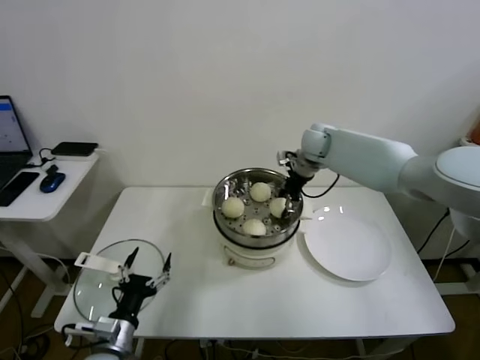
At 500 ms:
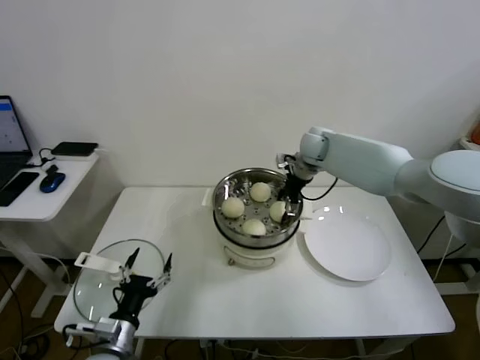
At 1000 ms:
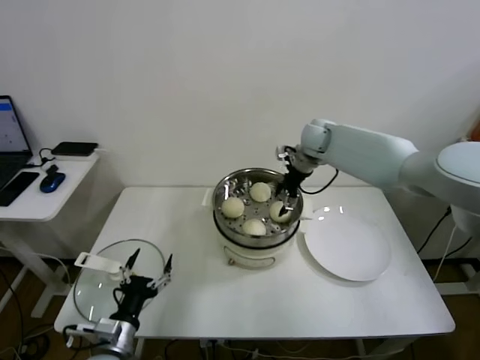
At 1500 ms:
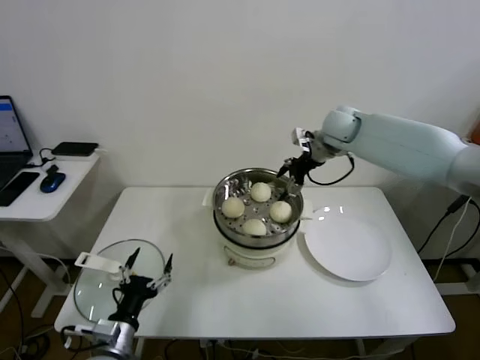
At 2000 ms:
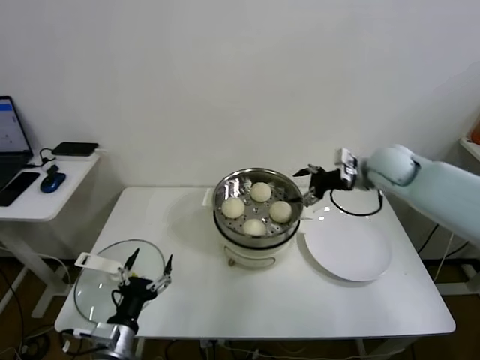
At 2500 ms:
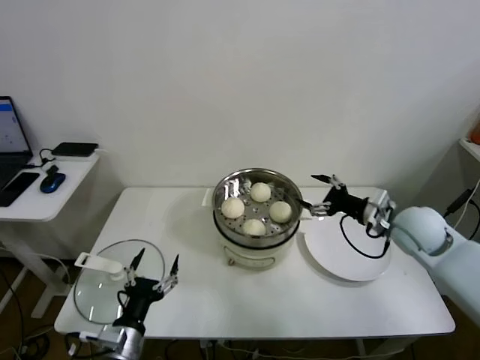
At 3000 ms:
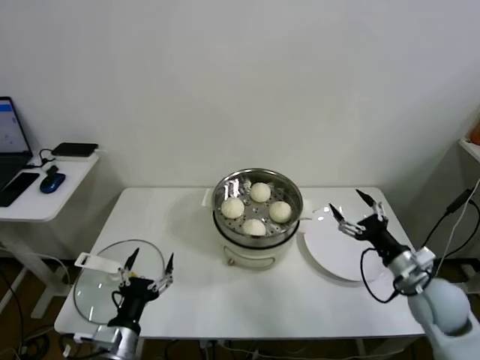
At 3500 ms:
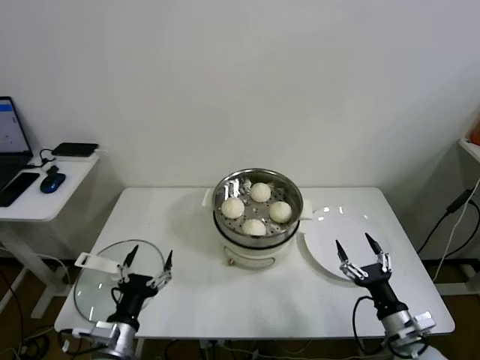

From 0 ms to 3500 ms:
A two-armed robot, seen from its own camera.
Task of the whole recording: take steamed baozi put them in steamer.
From 0 ms to 2000 ms: The right gripper heads to the right and backward, covering roughly 15 cm, and opens up.
From 2000 ms to 3500 ms: The right gripper goes roughly 40 cm backward and downward.

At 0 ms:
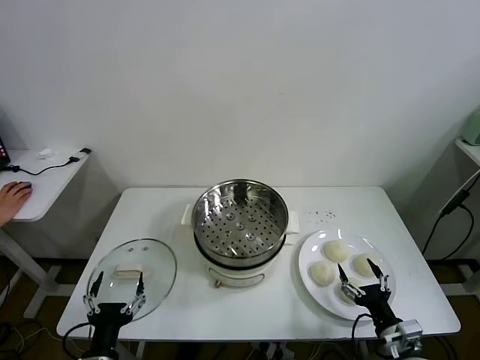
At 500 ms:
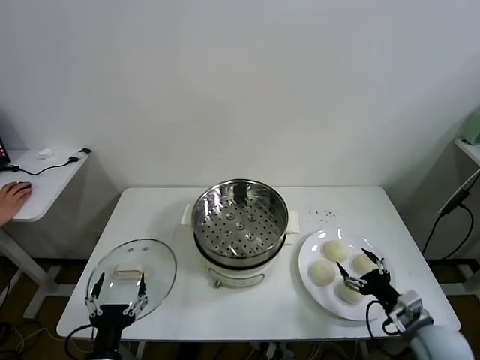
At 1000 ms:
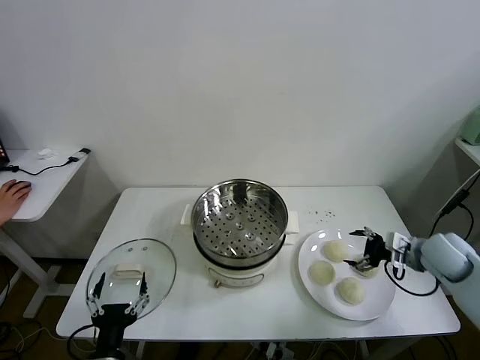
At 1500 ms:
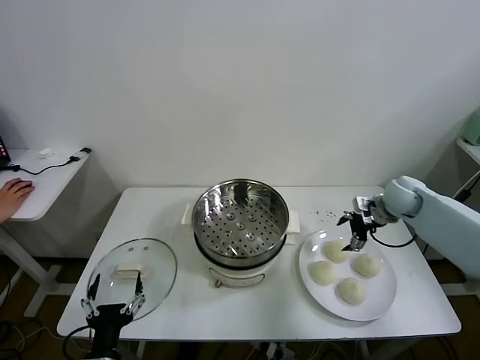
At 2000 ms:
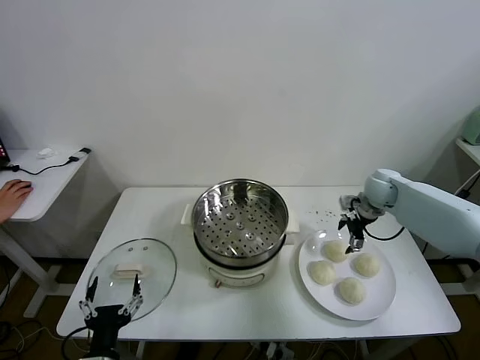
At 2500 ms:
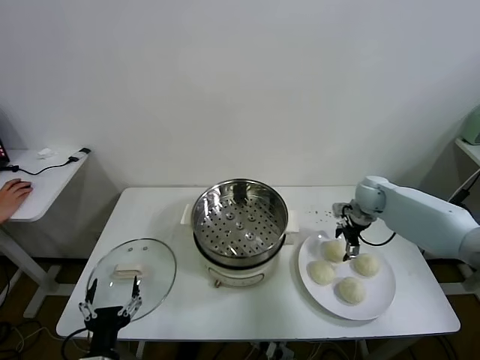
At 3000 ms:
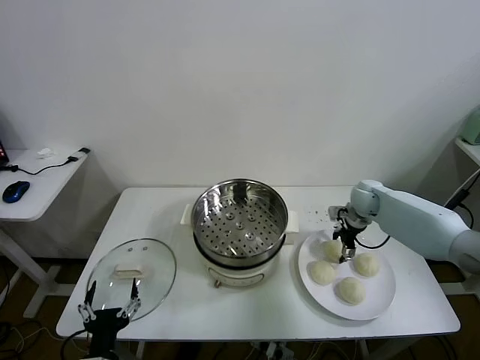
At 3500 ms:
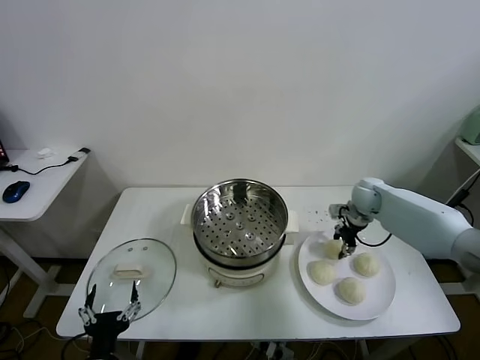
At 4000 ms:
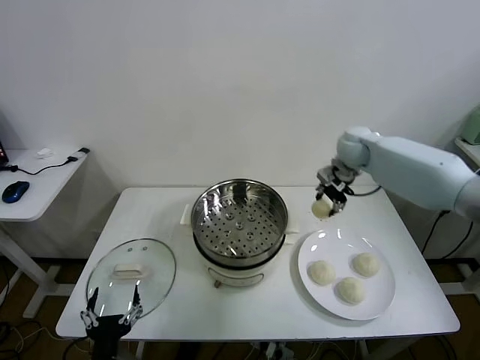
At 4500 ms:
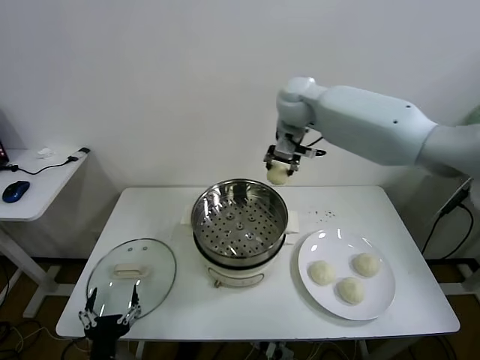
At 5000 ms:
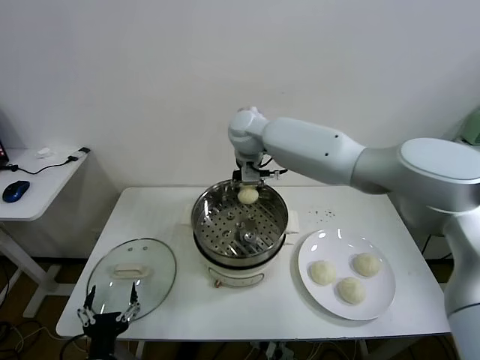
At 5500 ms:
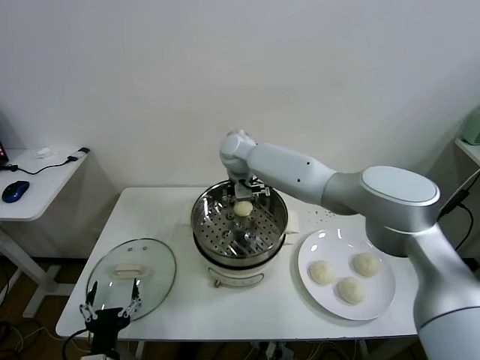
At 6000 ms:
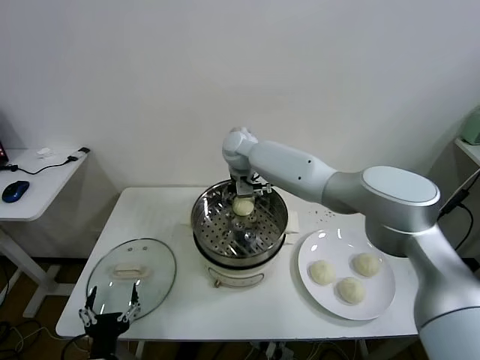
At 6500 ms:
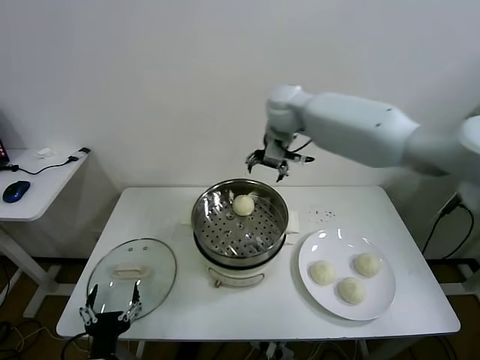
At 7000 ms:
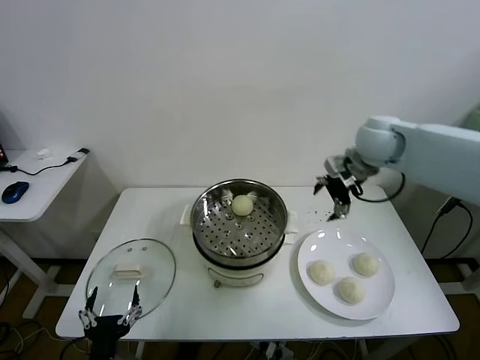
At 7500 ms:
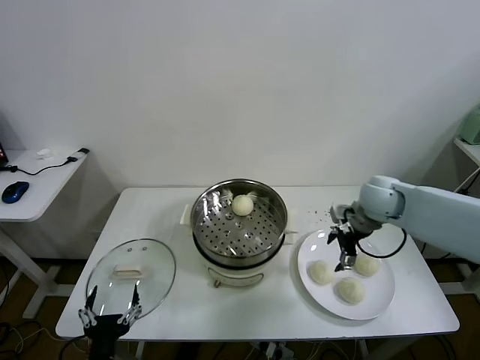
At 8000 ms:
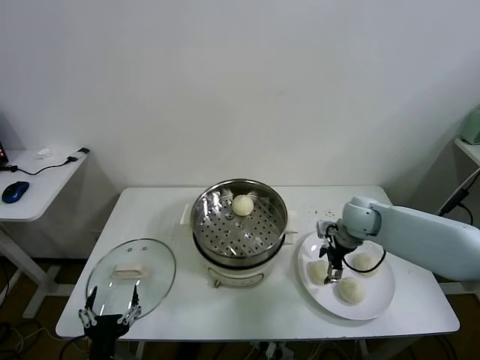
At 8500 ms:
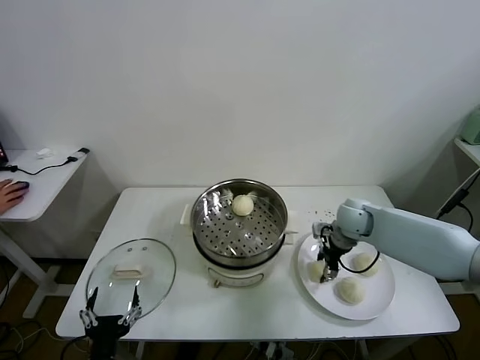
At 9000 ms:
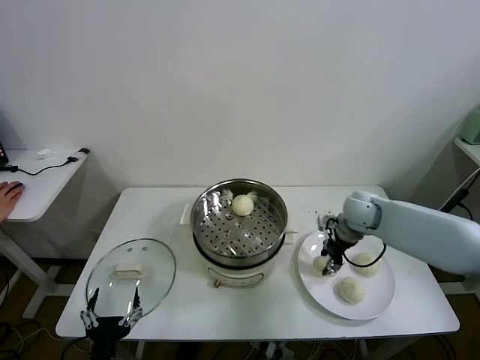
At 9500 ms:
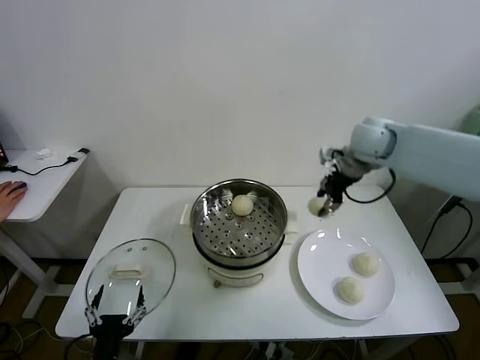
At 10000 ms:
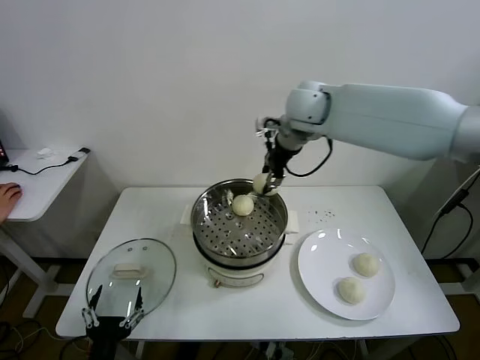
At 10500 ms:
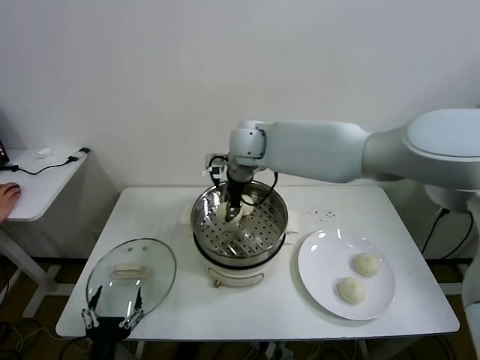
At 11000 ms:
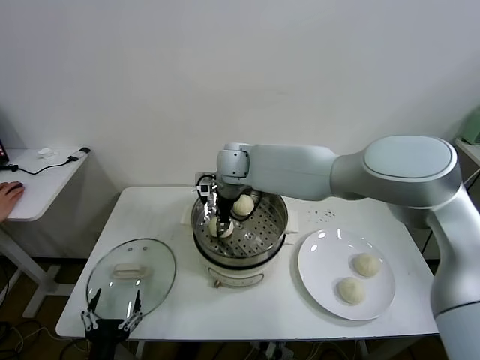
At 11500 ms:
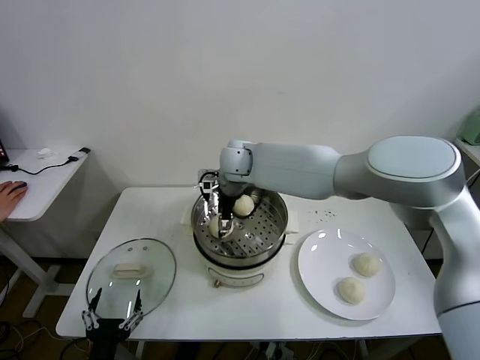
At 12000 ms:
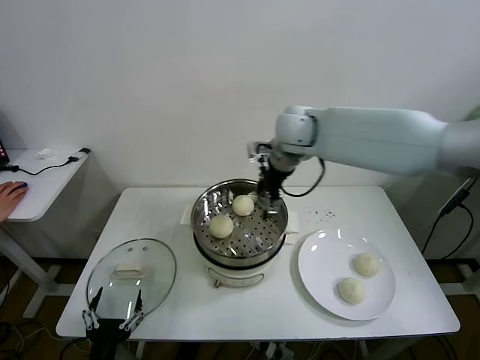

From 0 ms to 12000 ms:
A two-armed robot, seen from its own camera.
Task of the whole recording: take steamed baozi put them in steamer.
Step, from 0 ms to 3000 ms: Grasp the baozi in the plate with right gripper.
Step, from 3500 ms to 6000 ms: Place the baozi on the steamer with right gripper.
Step, from 6500 ms to 8500 ms: Grasp the baozi in the plate with right gripper.
Step, from 9000 ms to 11500 ms: Place the baozi on the steamer with right gripper.
From 2000 ms to 4000 ms: The right gripper shifts some 20 cm upward and to the left, and closes its fingers.
From 4000 ms to 6000 ms: The right gripper heads to the left, covering some 25 cm, and opens its fingers.
From 6000 ms to 8000 ms: The right gripper shifts approximately 30 cm to the right and downward.
From 8000 ms to 10000 ms: The right gripper is displaced upward and to the left by some 30 cm, and closes its fingers.
From 10000 ms to 12000 ms: The right gripper moves approximately 10 cm to the left and comes back, and opens up.

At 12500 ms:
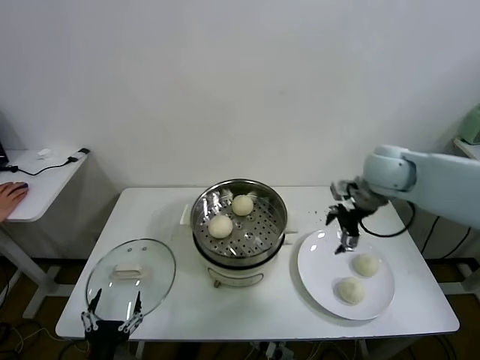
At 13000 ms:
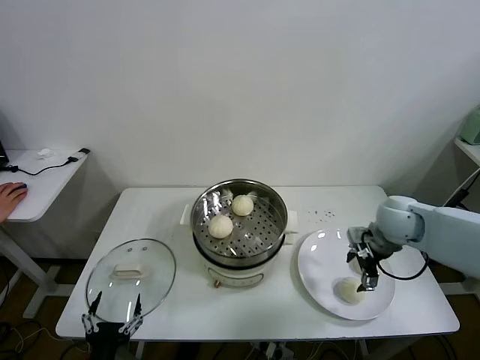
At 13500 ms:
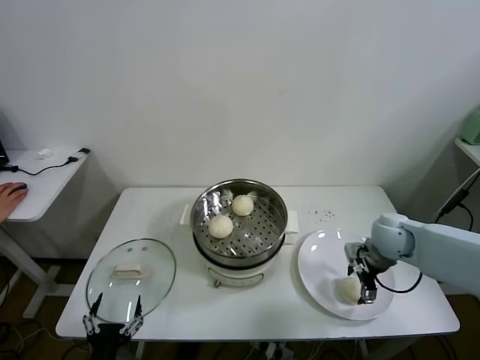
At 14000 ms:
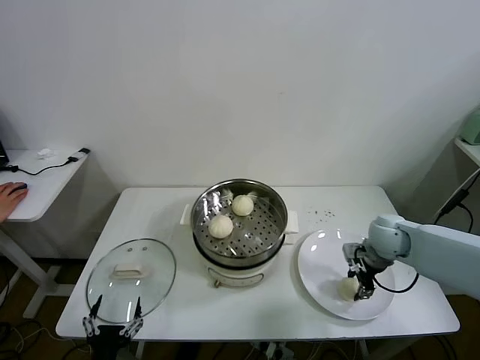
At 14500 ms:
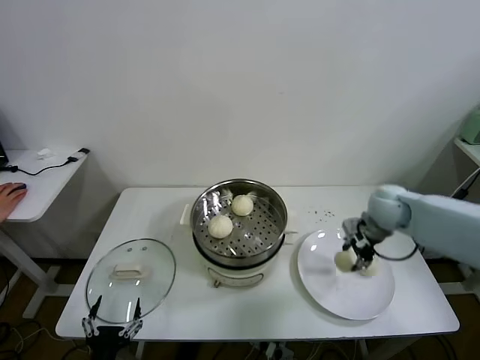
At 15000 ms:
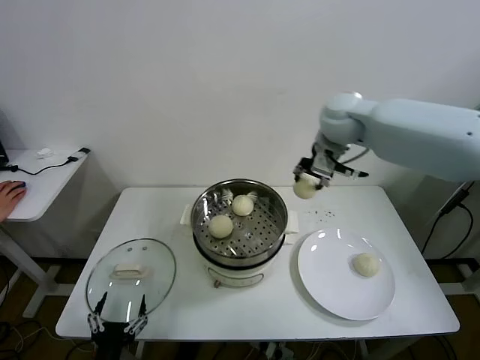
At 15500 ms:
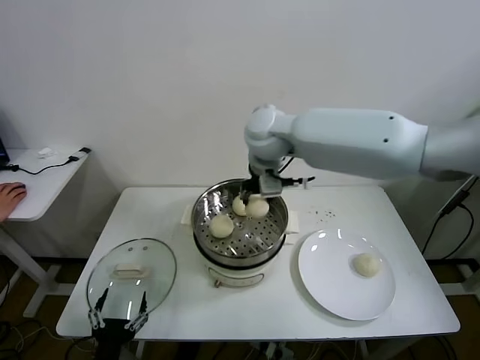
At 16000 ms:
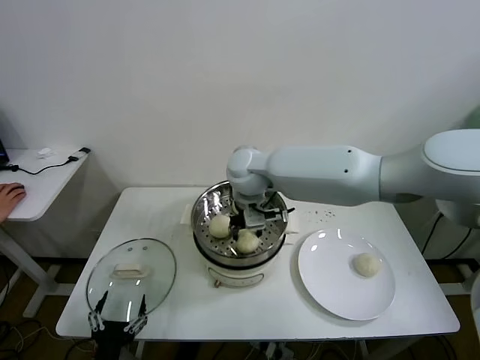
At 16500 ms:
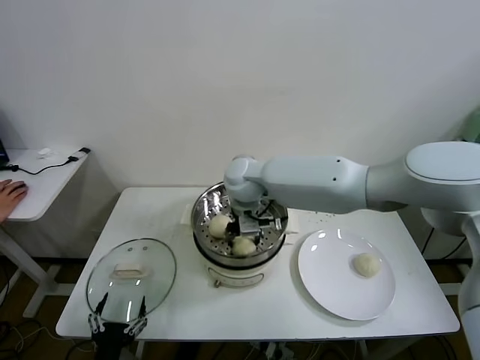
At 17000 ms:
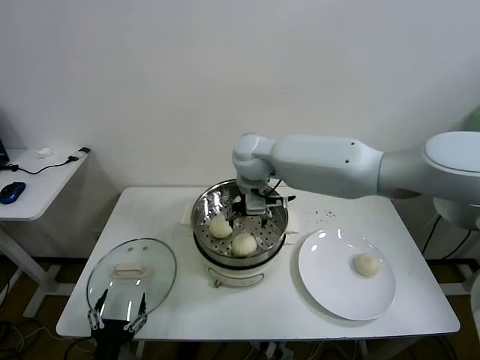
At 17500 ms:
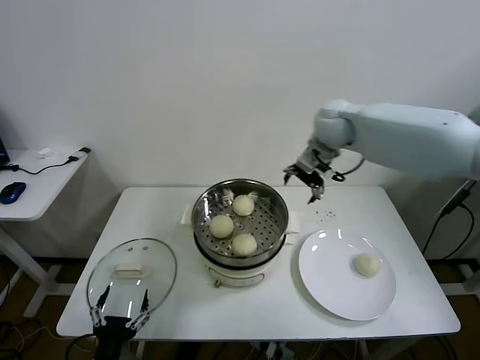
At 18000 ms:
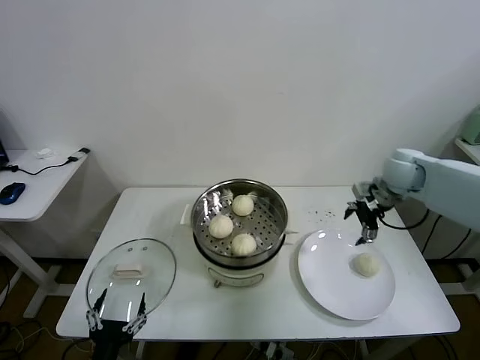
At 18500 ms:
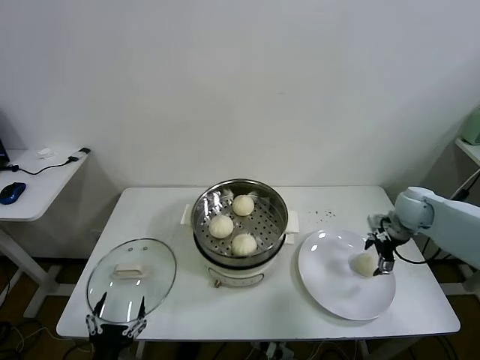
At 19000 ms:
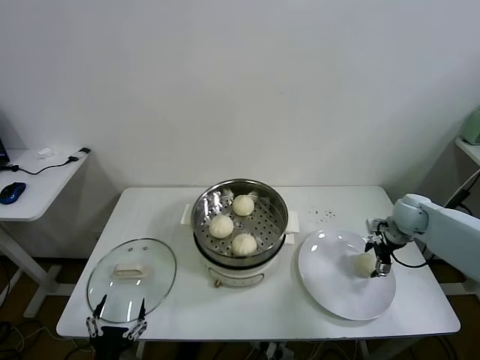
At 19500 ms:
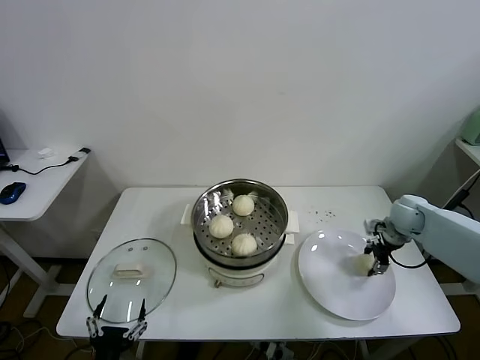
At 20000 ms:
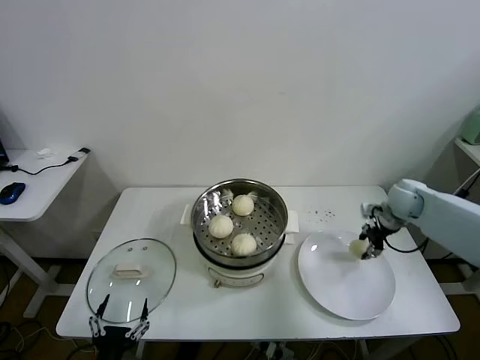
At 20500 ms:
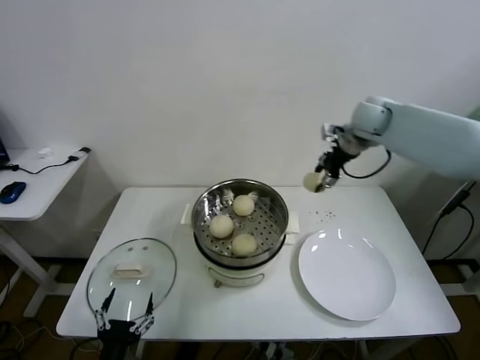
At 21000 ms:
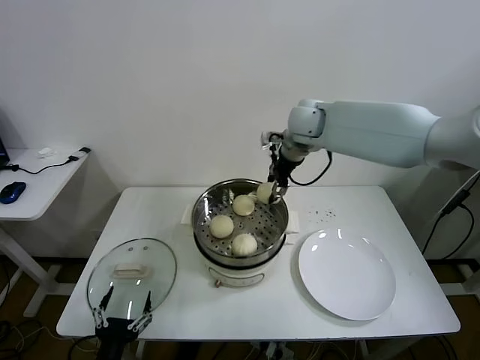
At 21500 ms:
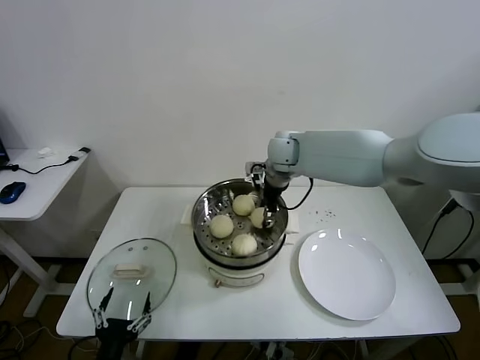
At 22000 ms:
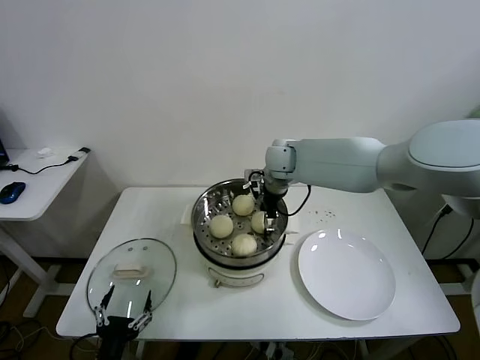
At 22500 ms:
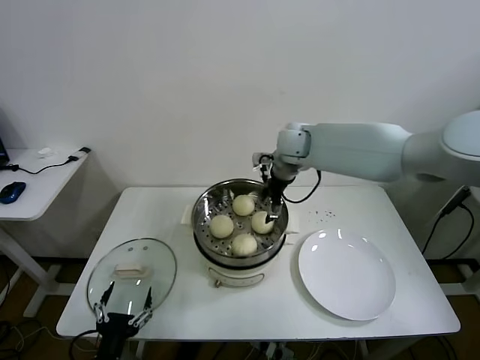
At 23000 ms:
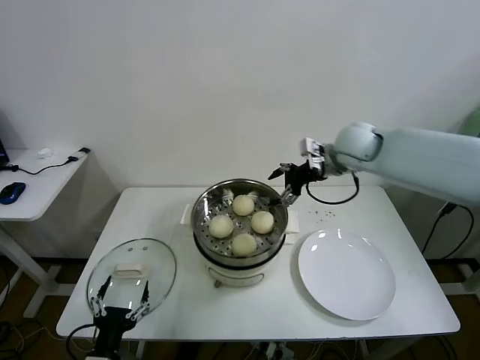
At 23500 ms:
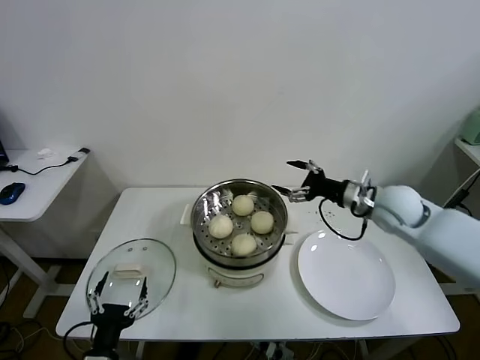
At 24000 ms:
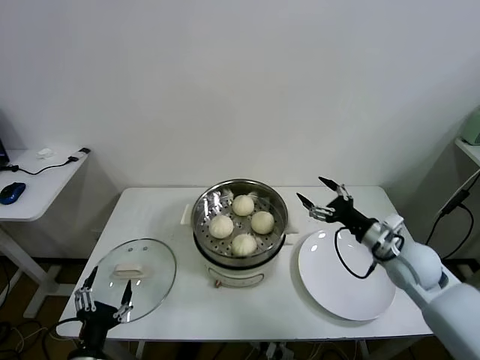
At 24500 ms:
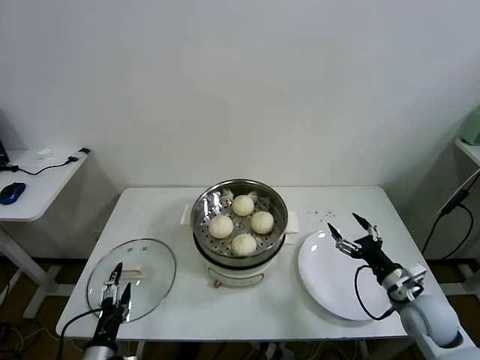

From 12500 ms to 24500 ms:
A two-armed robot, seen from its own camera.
Task of the whole recording: take steamed baozi put them in steamer.
Step, from 12500 ms to 14000 ms: Grasp the baozi in the plate with right gripper.
Step, from 14500 ms to 16500 ms: Place the baozi on the steamer with right gripper.
Step, from 17000 ms to 19500 ms: Grasp the baozi in the plate with right gripper.
Step, from 20000 ms to 22000 ms: Place the baozi on the steamer with right gripper.
From 12500 ms to 14500 ms: The right gripper is displaced downward by about 10 cm, and closes up.
From 14500 ms to 16500 ms: The right gripper shifts approximately 35 cm to the left, and opens.
From 16500 ms to 18500 ms: The right gripper shifts some 40 cm to the right, and opens up.
From 18500 ms to 20500 ms: The right gripper is displaced upward, to the left and forward by roughly 25 cm, and closes its fingers.
From 20500 ms to 22500 ms: The right gripper moves to the left, approximately 15 cm, and opens up.
From 22500 ms to 24500 ms: The right gripper moves backward, to the right and downward, some 50 cm.
